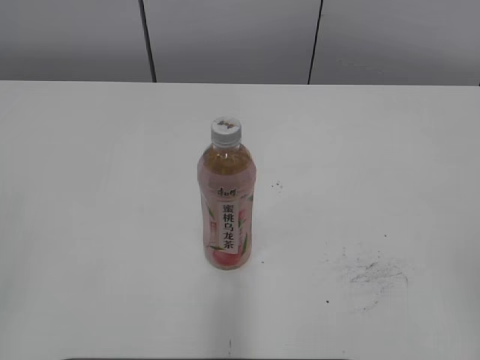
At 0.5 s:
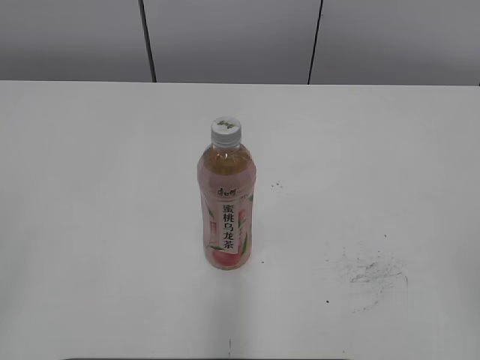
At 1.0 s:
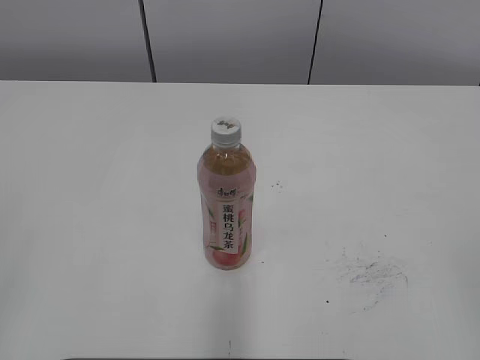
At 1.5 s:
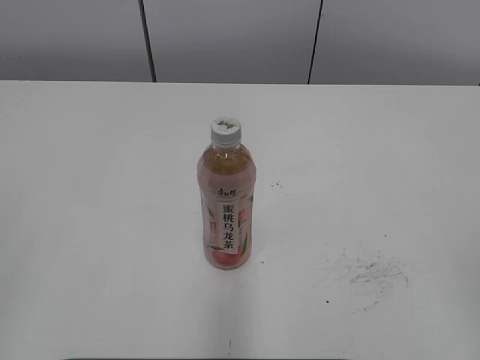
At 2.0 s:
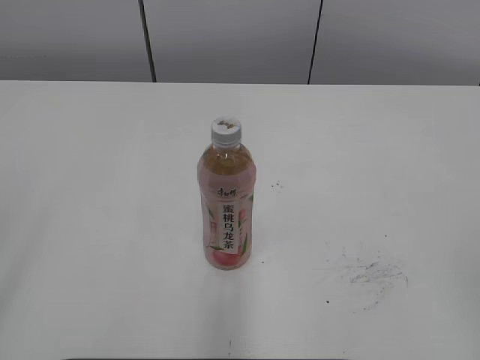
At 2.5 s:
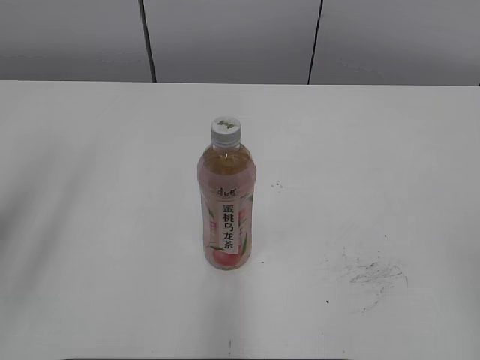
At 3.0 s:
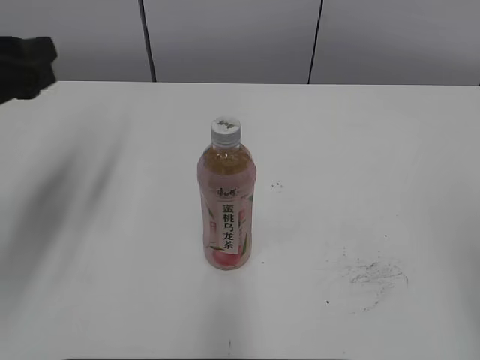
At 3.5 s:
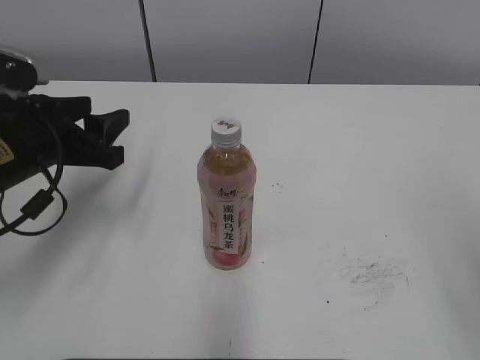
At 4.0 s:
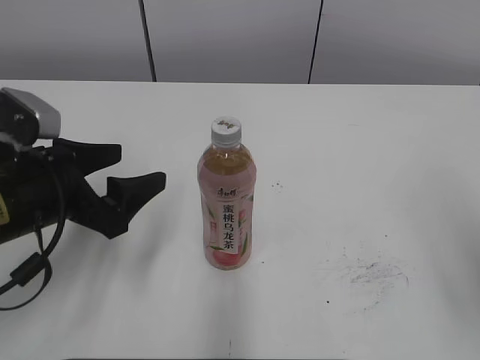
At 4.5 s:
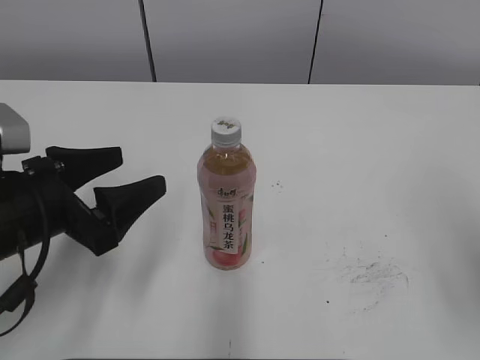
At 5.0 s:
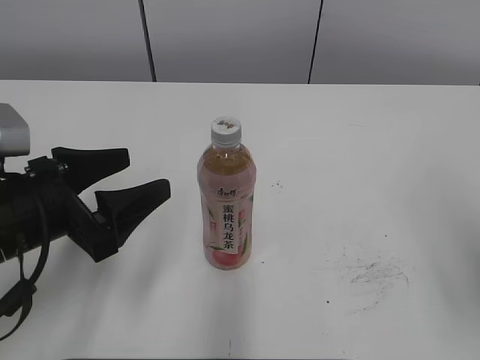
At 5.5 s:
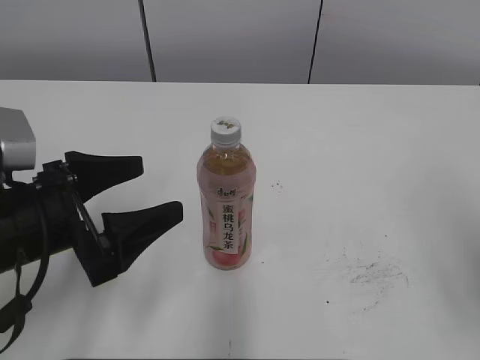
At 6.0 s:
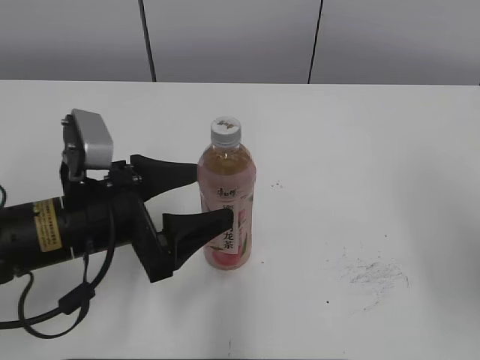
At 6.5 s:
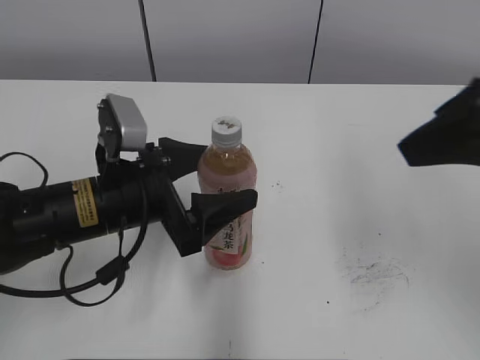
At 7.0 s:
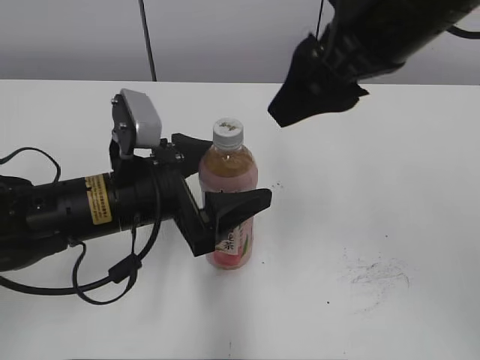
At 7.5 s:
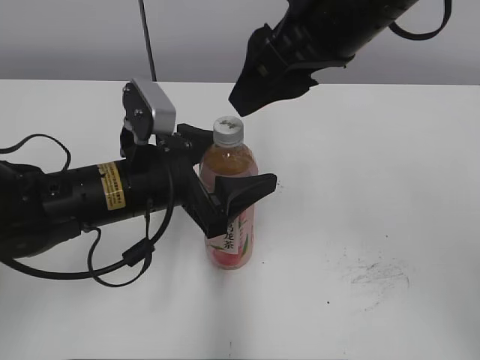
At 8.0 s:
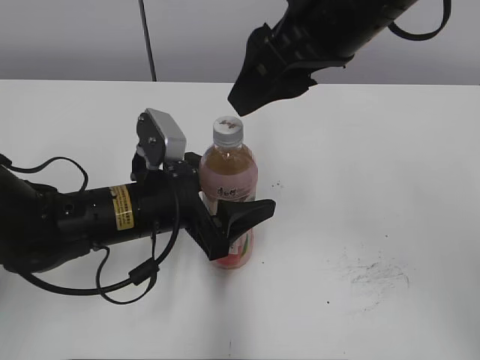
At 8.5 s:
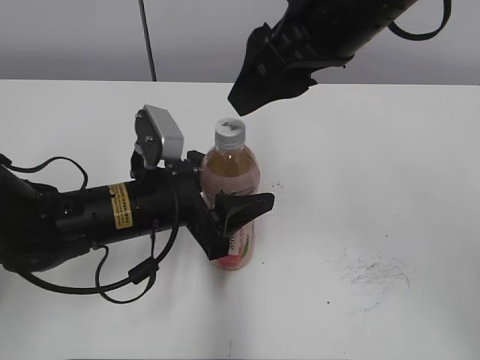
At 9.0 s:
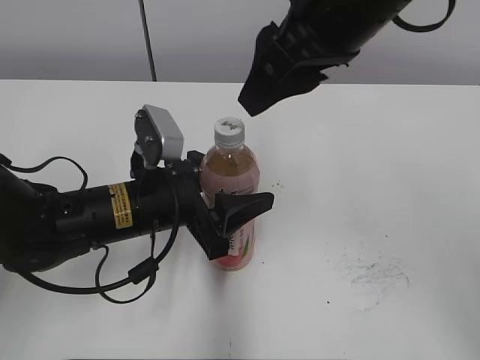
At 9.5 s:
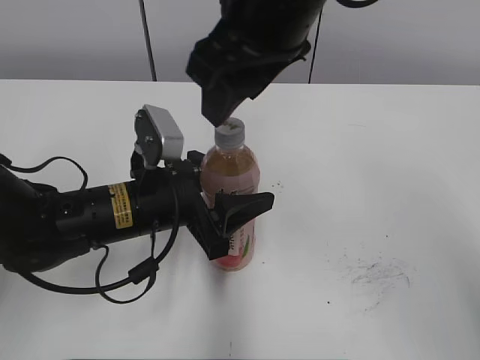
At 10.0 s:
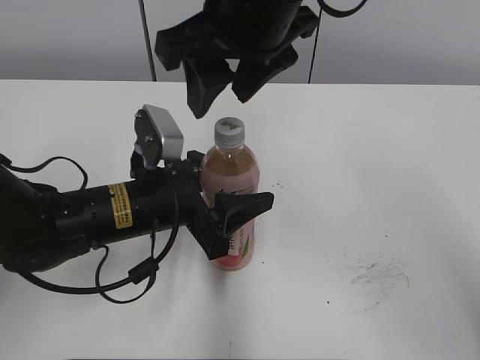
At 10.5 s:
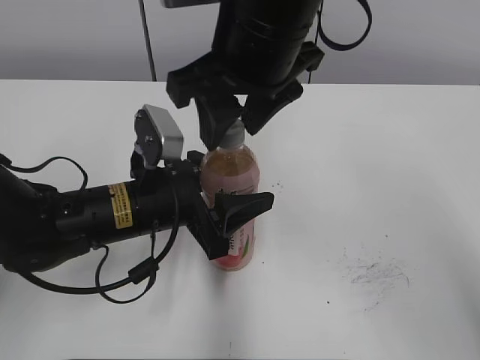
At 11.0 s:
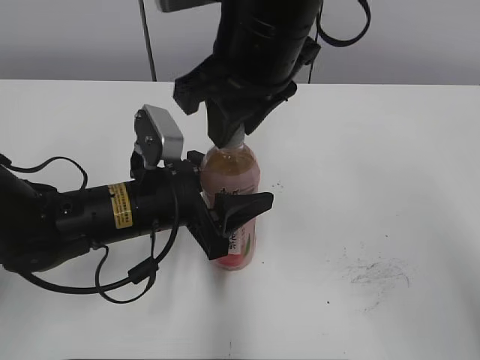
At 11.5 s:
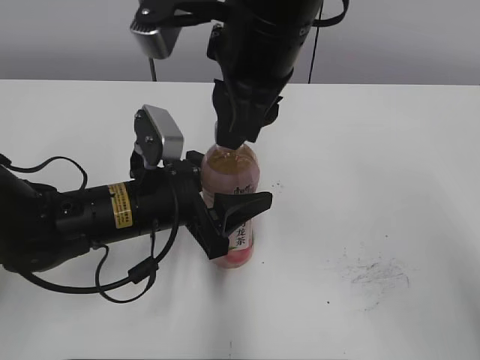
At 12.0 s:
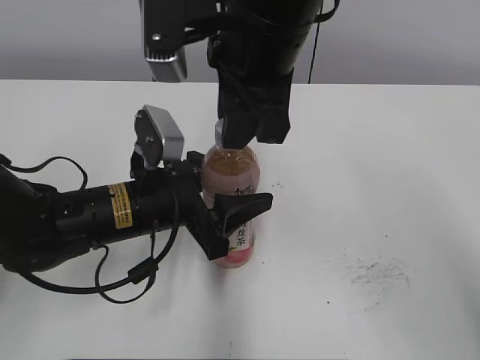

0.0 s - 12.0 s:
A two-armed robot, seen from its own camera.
Step, 0.0 s - 8.0 s: Grab the Peach Oolong Tea with the left hand.
2.0 s - 4.0 s: The left gripper travels forward, downward and to the right by about 30 cm, and opens.
4.0 s - 6.0 s: The left gripper travels to the right by about 5 cm, and opens up.
6.0 s - 8.0 s: The left gripper shifts by some 5 cm. Meanwhile the right gripper is displaced to the left and forward by approximately 25 cm.
8.0 s - 10.0 s: The left gripper closes. The right gripper heads to the left, covering some 5 cm.
10.0 s - 12.0 s: The right gripper closes its fingers.

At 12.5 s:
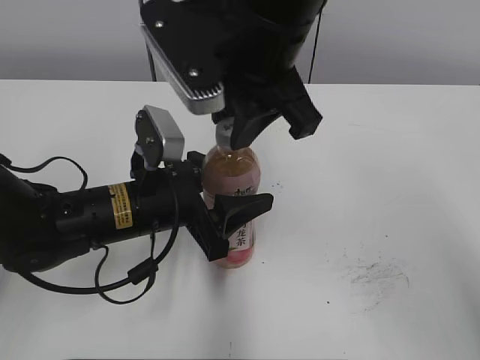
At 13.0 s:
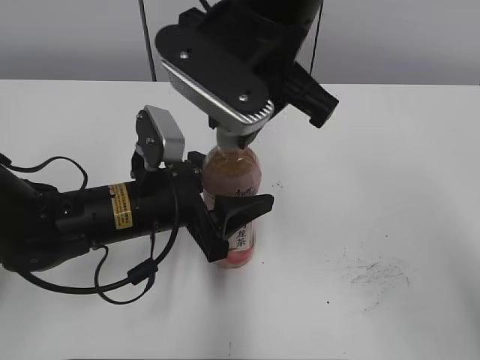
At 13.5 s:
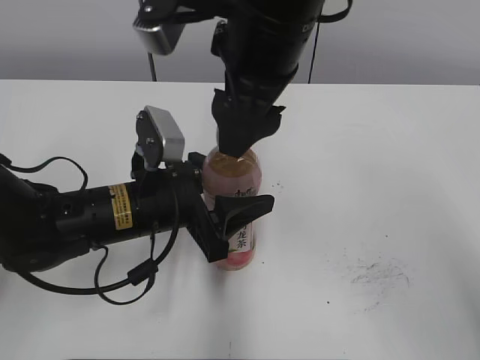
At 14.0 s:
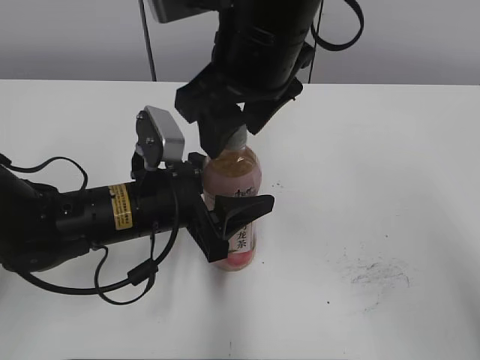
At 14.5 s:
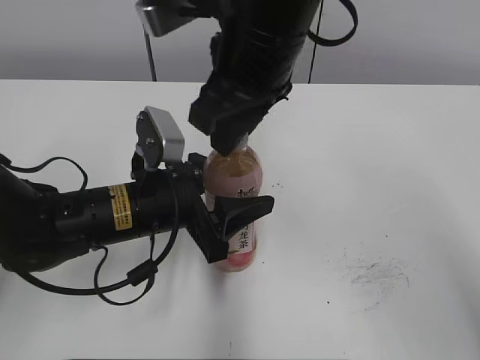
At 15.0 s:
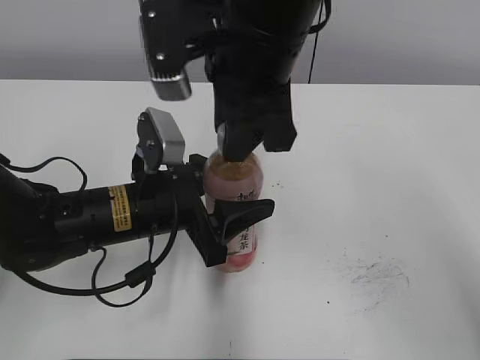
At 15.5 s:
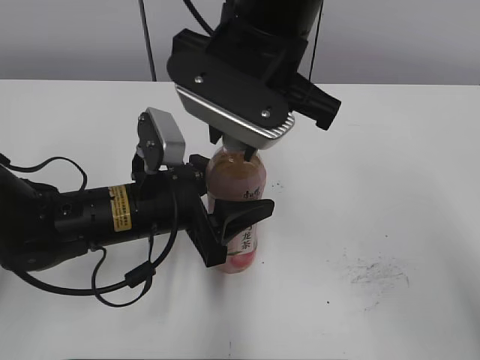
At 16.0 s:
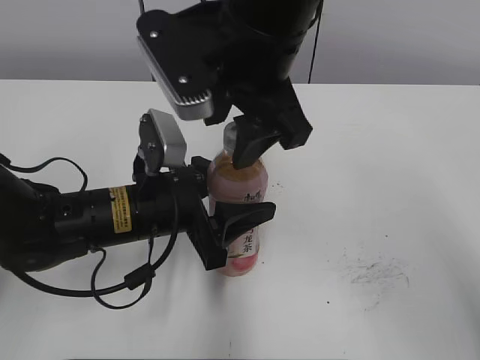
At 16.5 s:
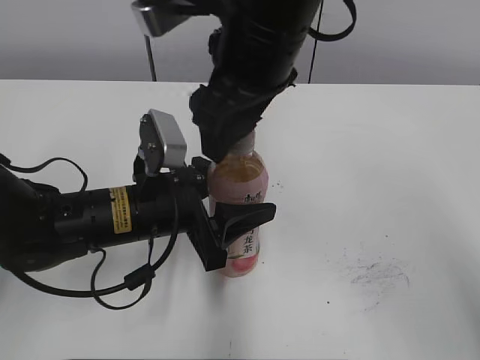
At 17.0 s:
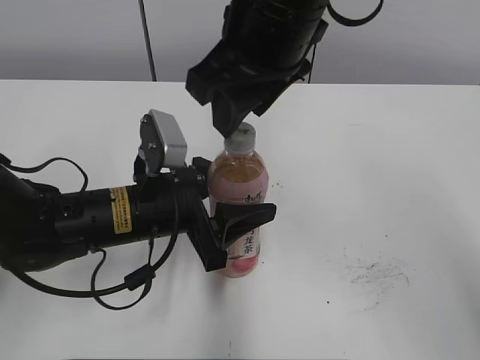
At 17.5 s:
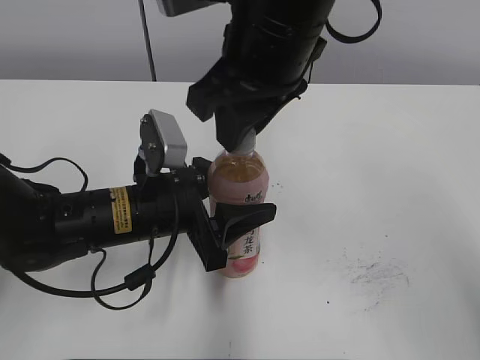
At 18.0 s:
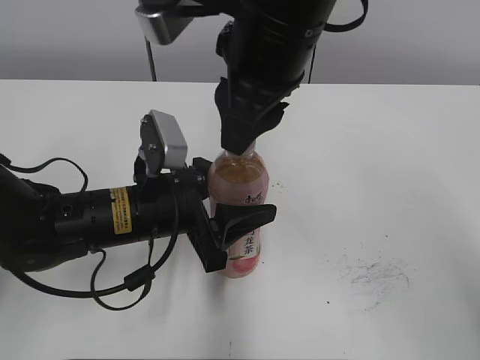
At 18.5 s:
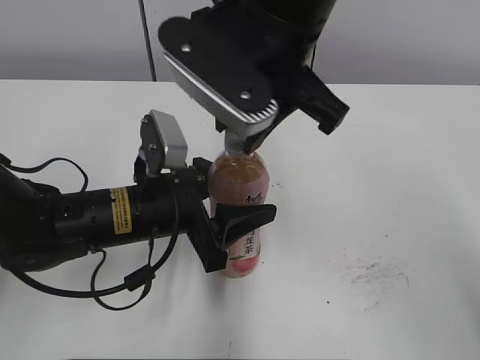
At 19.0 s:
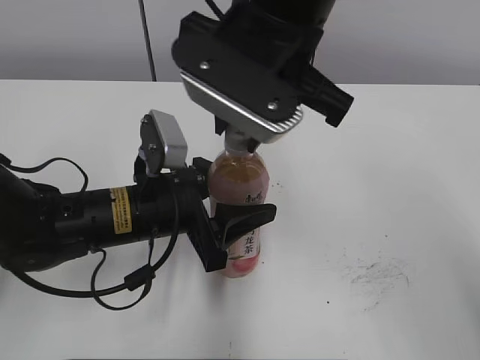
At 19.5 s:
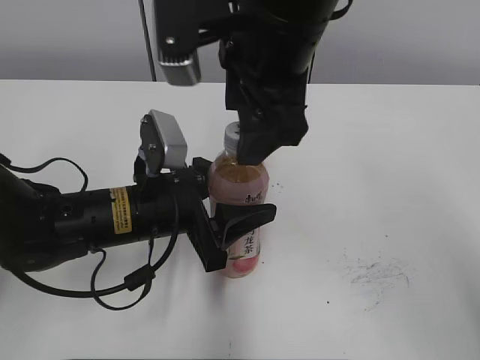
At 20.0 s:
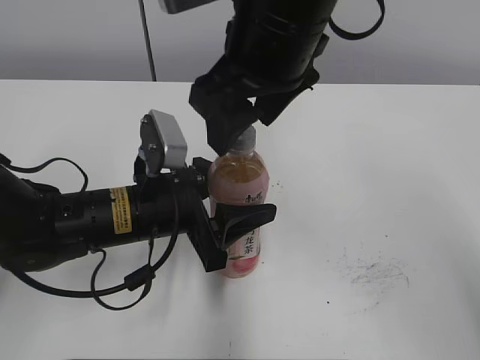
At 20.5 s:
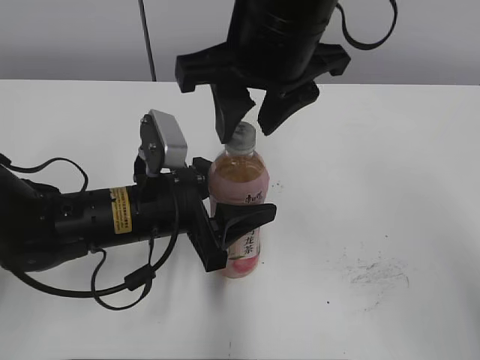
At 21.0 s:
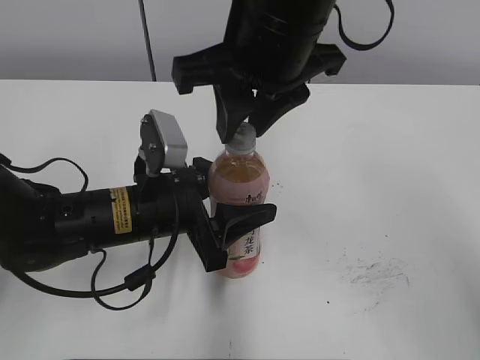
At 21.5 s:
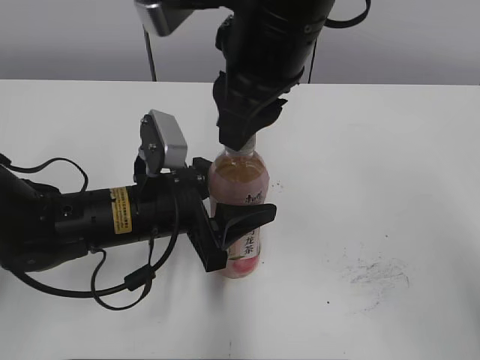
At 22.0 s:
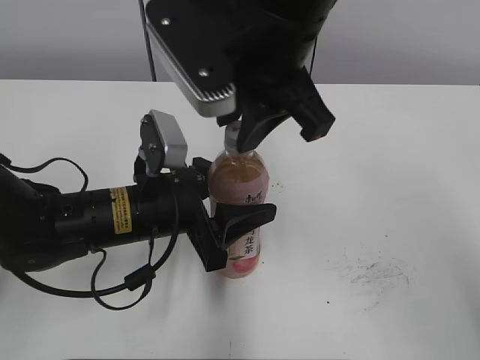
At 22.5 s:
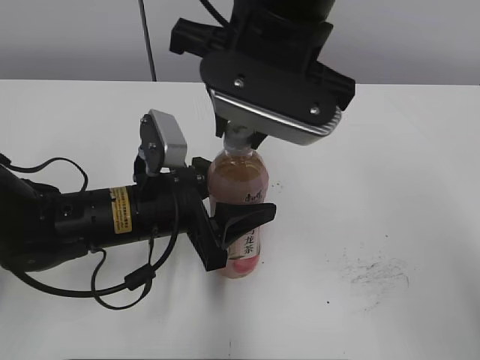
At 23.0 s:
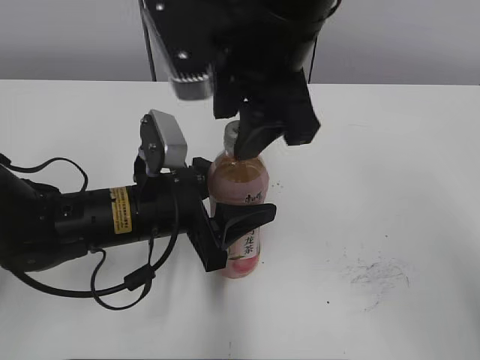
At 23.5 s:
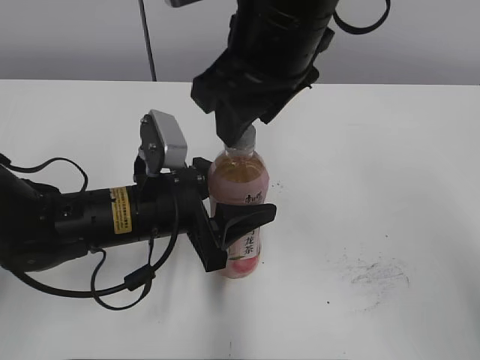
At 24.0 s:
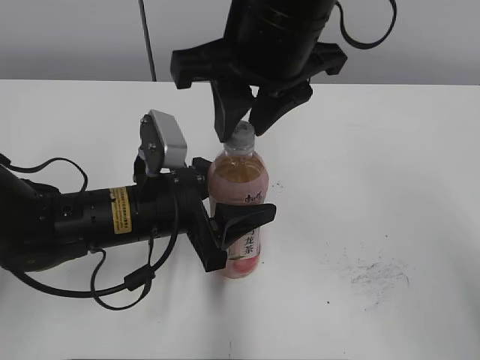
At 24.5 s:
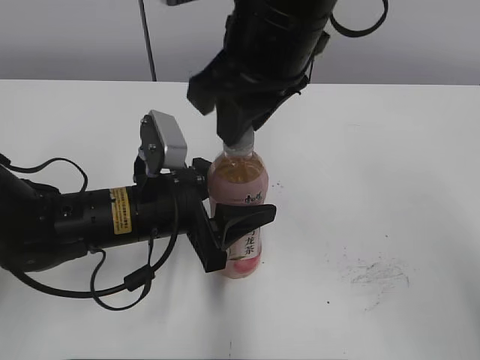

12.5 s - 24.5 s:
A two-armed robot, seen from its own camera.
12.5 s - 14.5 s: The right gripper opens and closes again.
14.5 s - 16.5 s: The right gripper opens up.
16.5 s - 18.5 s: The right gripper closes up.
18.5 s - 20.5 s: The right gripper opens, then closes once more.
22.5 s - 24.5 s: The right gripper opens, then closes again.

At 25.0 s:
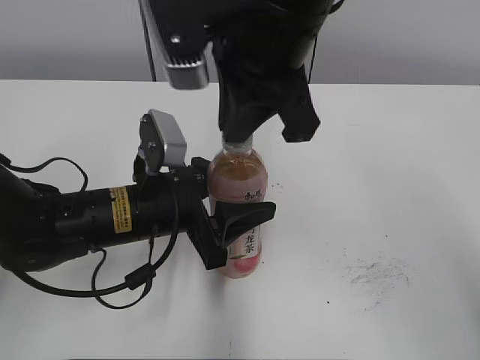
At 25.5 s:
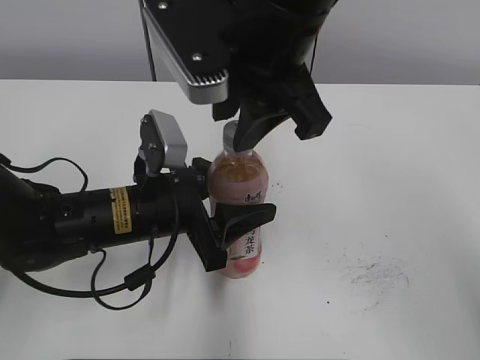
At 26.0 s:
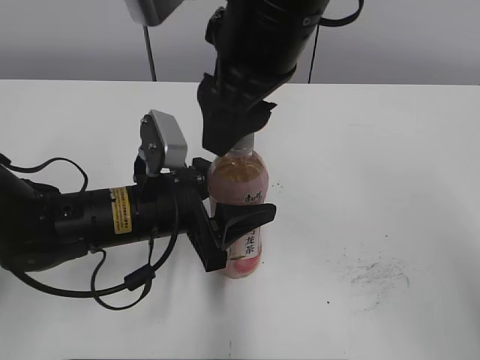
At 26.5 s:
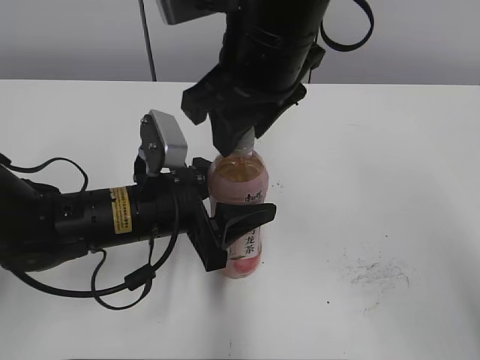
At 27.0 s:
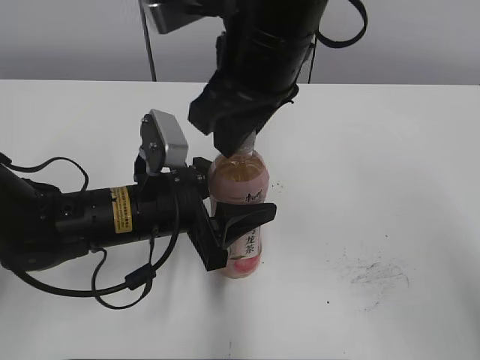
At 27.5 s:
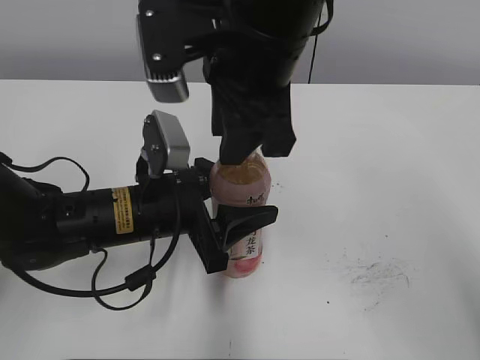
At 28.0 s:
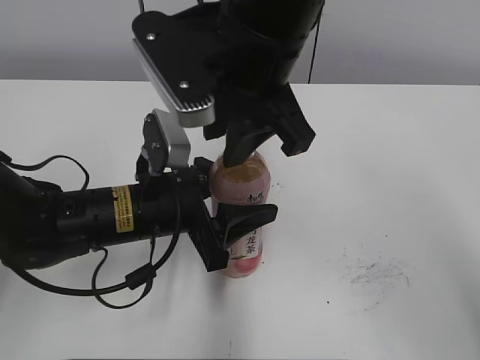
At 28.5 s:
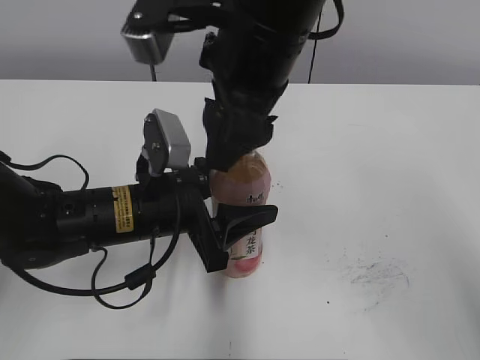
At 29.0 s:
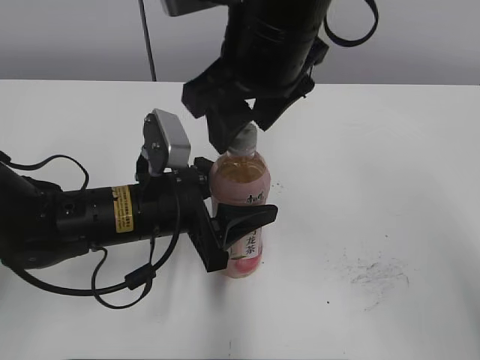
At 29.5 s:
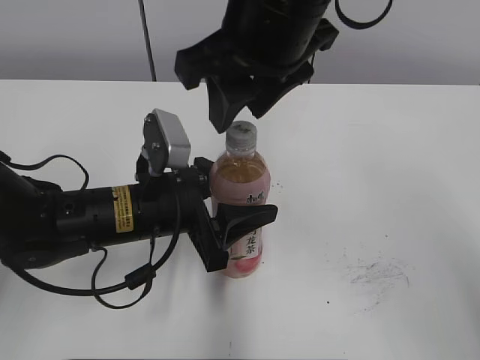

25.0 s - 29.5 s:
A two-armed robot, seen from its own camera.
25.0 s - 27.0 s: The right gripper opens its fingers.
